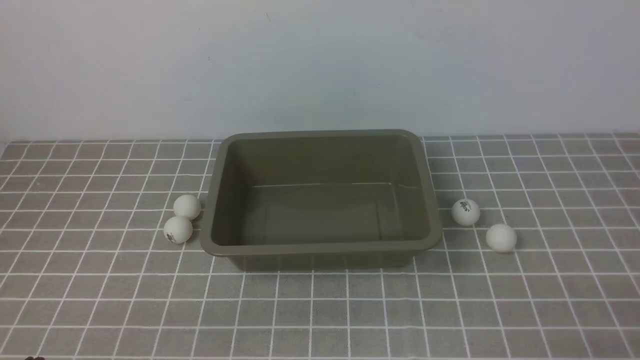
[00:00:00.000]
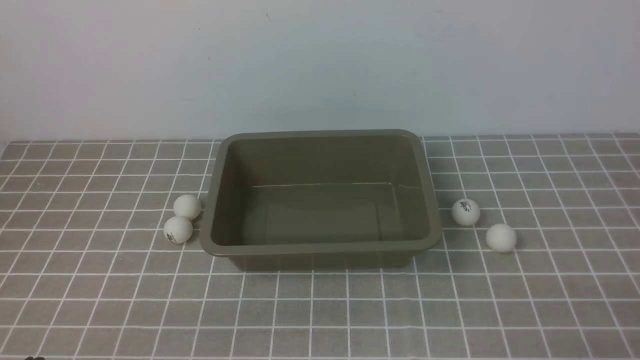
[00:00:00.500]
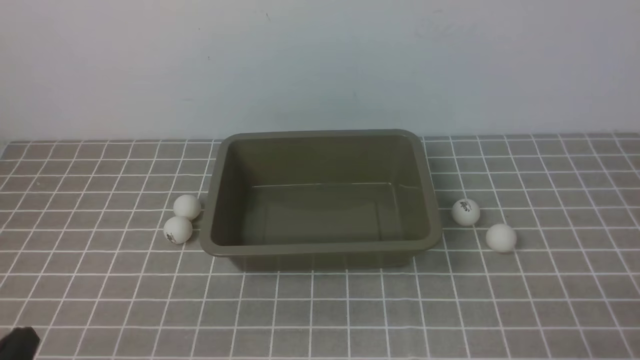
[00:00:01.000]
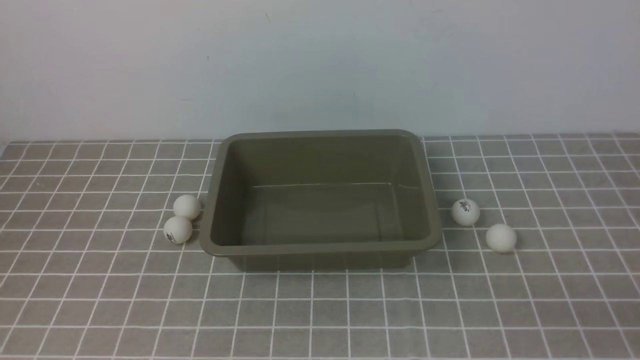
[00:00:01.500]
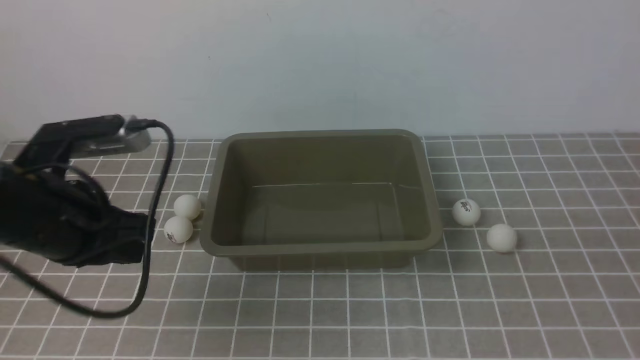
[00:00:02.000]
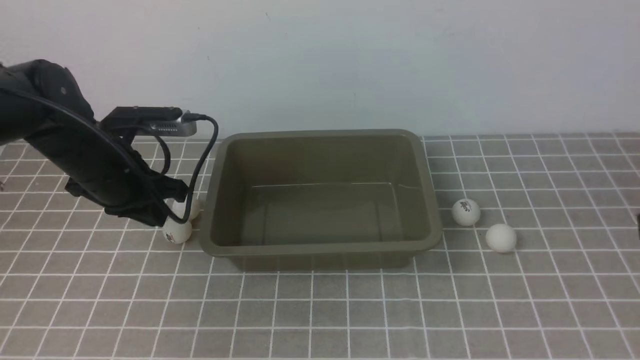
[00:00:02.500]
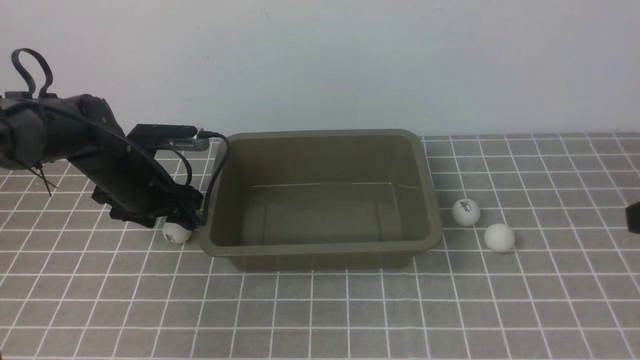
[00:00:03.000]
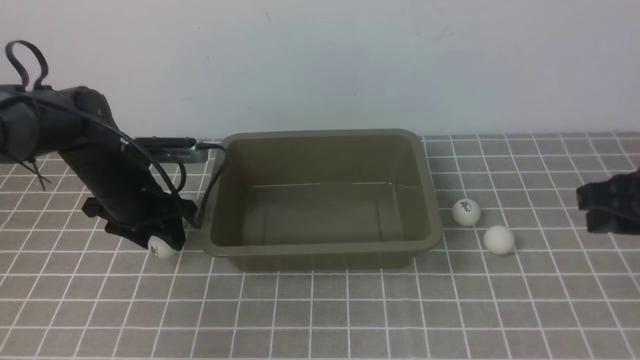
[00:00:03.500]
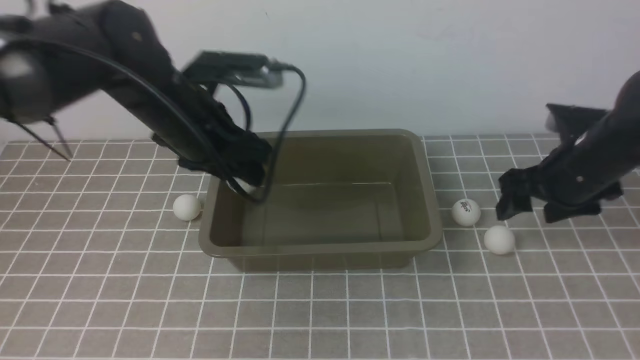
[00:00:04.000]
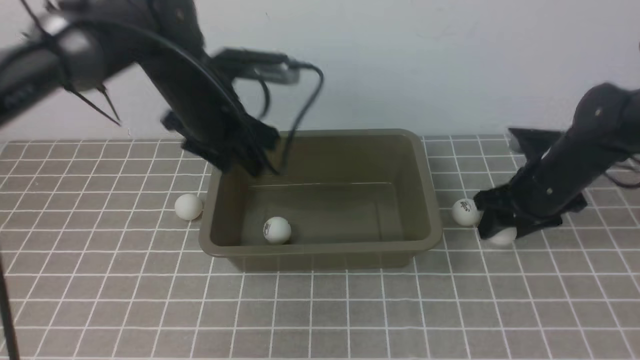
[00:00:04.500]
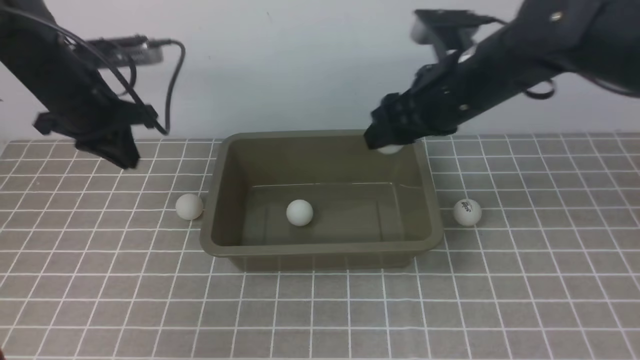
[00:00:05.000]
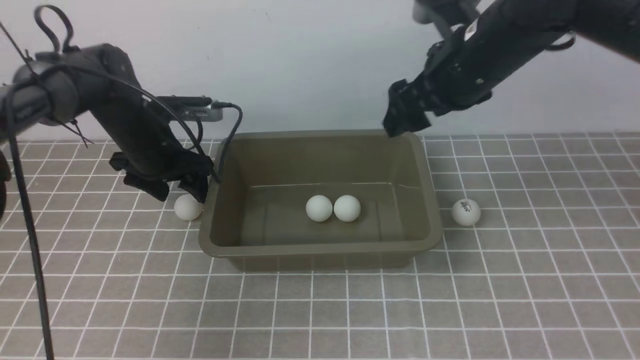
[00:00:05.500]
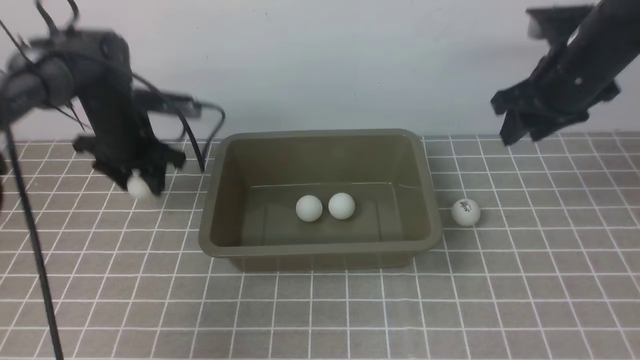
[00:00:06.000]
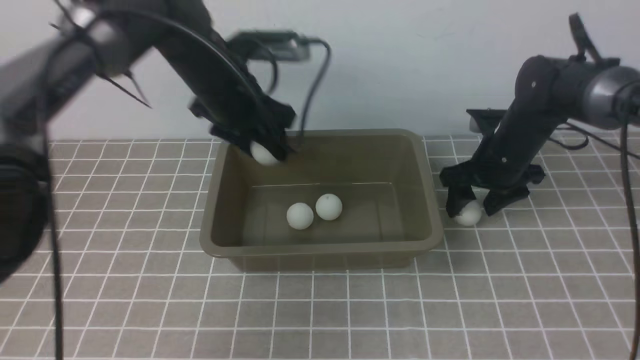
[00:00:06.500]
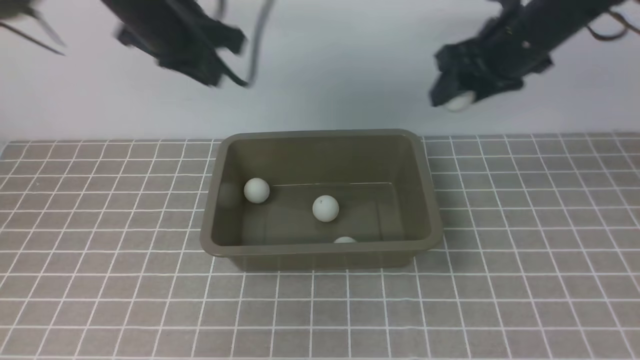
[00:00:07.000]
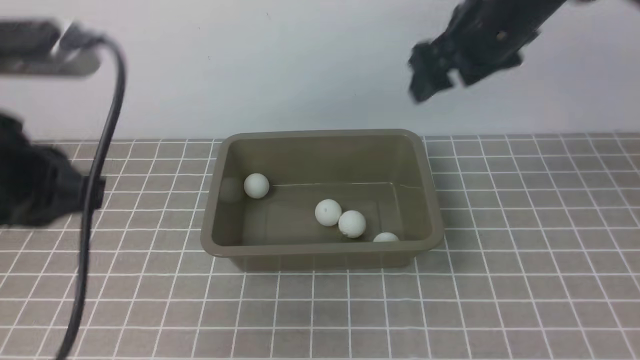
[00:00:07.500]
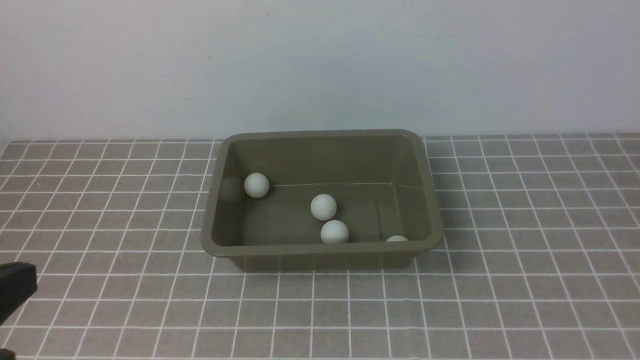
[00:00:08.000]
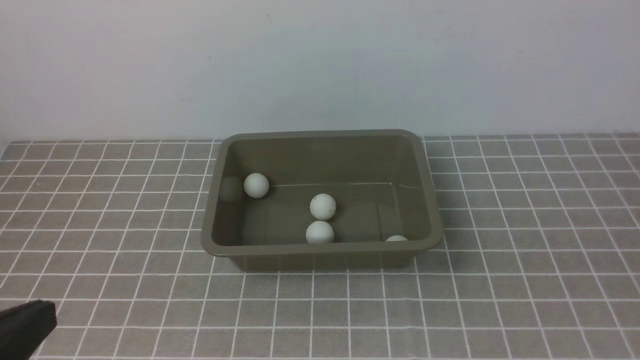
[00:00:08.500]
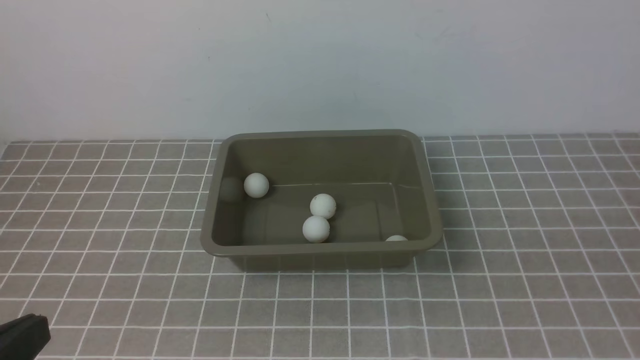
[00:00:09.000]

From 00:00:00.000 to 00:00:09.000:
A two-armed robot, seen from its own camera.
Step, from 00:00:00.000 to 00:00:03.500: use the left arm to clamp the table tennis ball closest to it.
Step, from 00:00:05.500 to 00:00:06.000: use the left arm to clamp the table tennis ball closest to it.
From 00:00:00.000 to 00:00:02.000: The left gripper goes roughly 25 cm forward and upward, while the right gripper travels upward by about 10 cm.
From 00:00:02.000 to 00:00:04.500: The left gripper heads forward and to the right, covering approximately 15 cm, and opens up. The right gripper is displaced forward by roughly 30 cm, and opens.
From 00:00:04.500 to 00:00:07.000: The left gripper shifts roughly 10 cm upward, and closes up. The right gripper moves up and down over about 15 cm, changing direction 2 times.
From 00:00:07.000 to 00:00:09.000: Both grippers travel together backward, approximately 35 cm. The right gripper closes its fingers.

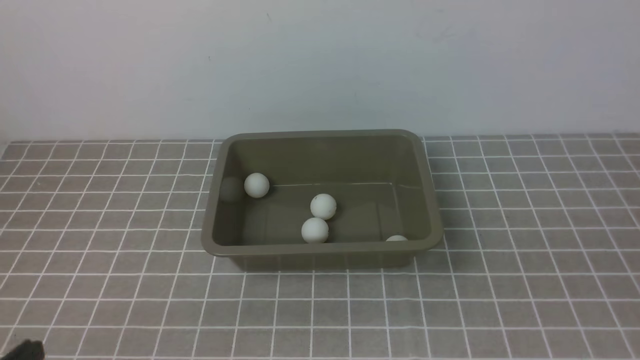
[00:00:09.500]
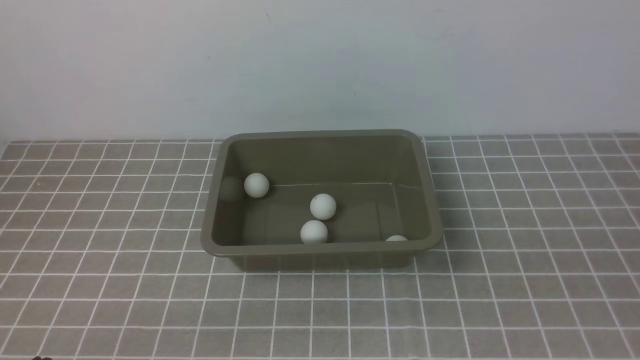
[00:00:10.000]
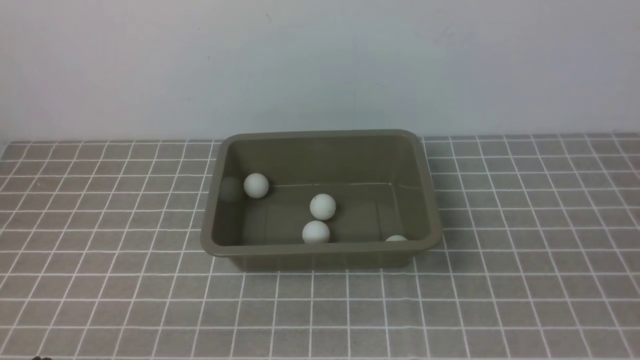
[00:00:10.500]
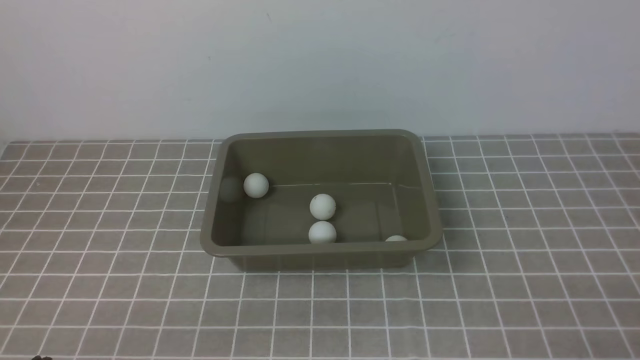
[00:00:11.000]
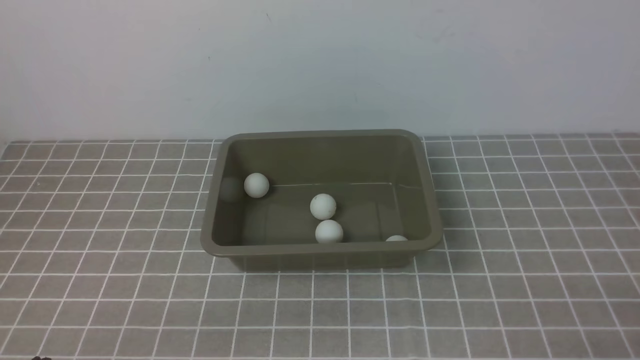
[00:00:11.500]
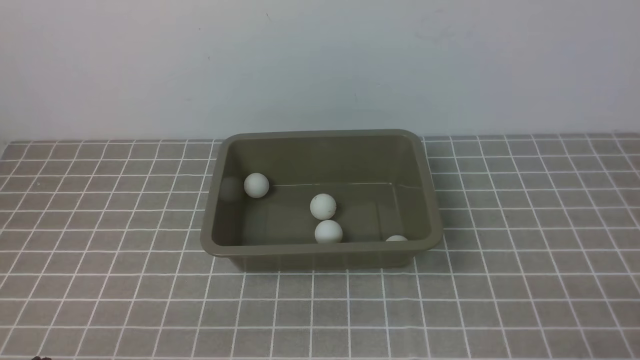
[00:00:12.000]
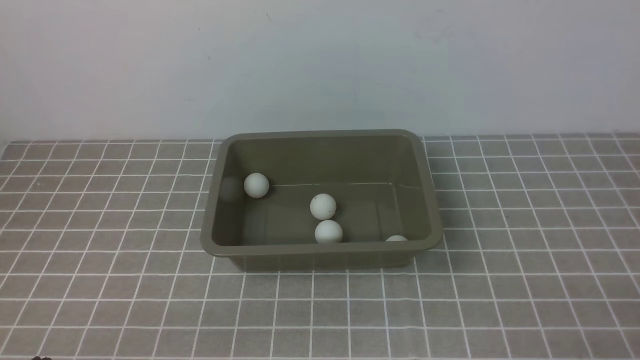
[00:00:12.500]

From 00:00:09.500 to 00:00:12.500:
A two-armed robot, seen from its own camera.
From 00:00:11.000 to 00:00:12.500: Neither gripper changes place.
